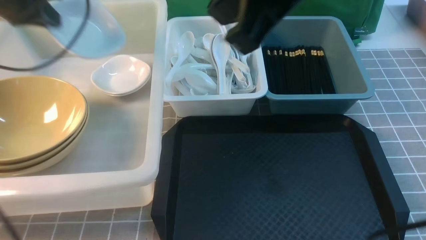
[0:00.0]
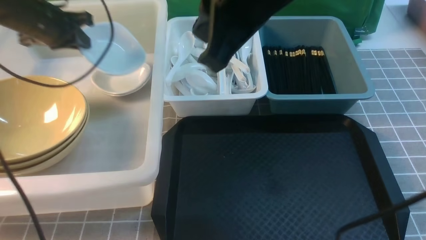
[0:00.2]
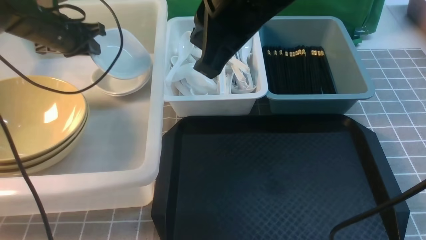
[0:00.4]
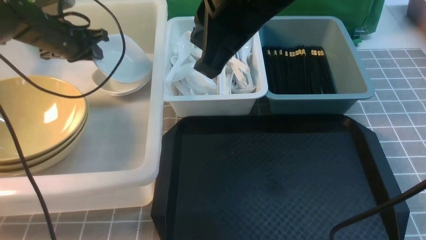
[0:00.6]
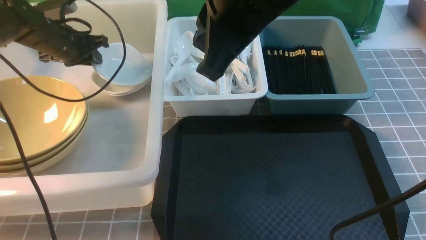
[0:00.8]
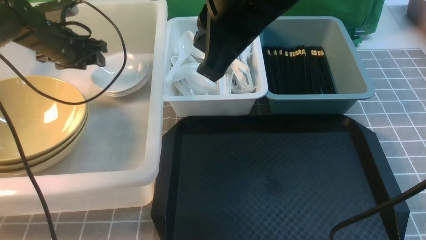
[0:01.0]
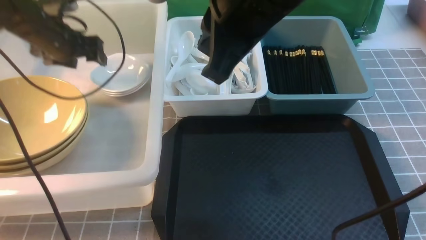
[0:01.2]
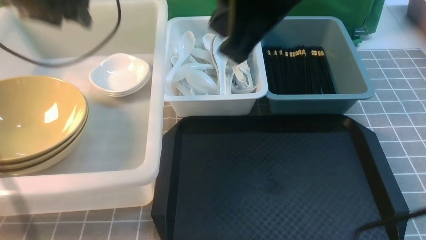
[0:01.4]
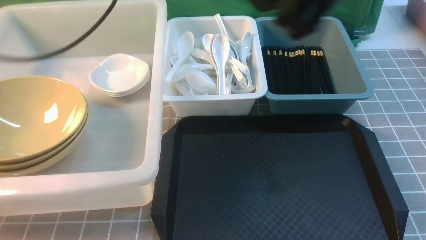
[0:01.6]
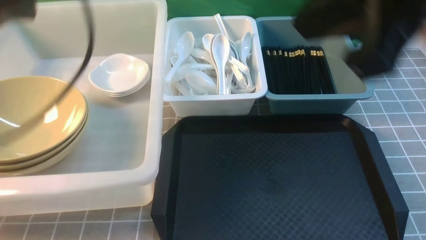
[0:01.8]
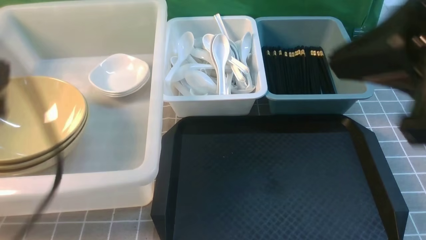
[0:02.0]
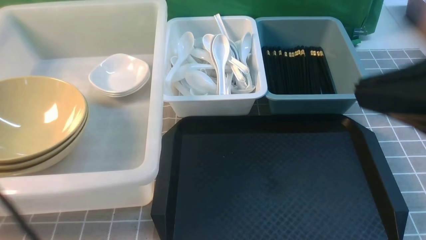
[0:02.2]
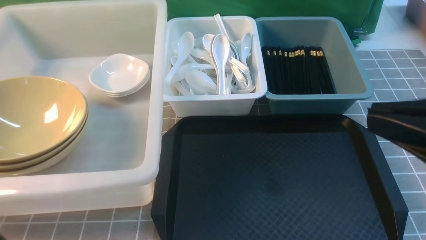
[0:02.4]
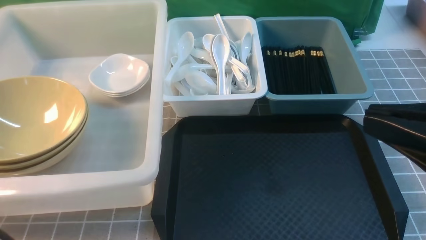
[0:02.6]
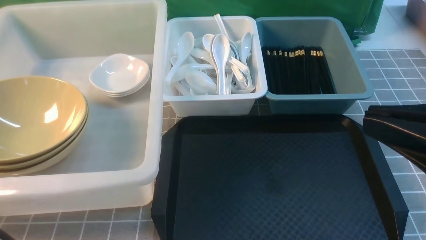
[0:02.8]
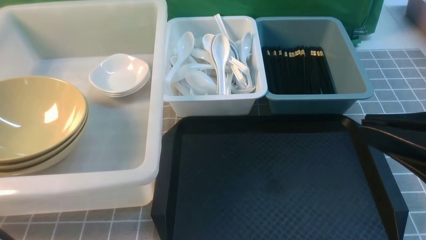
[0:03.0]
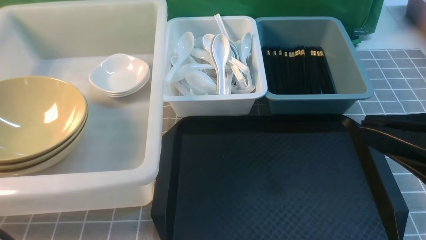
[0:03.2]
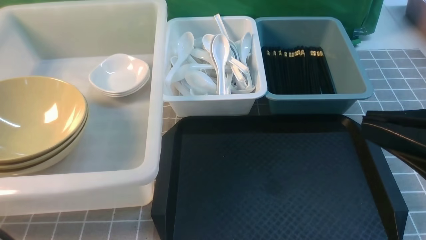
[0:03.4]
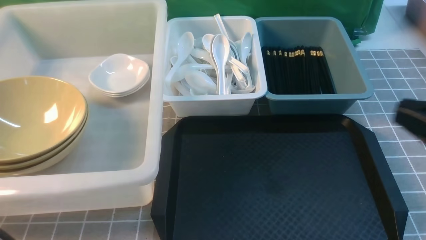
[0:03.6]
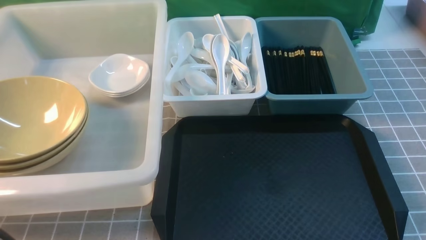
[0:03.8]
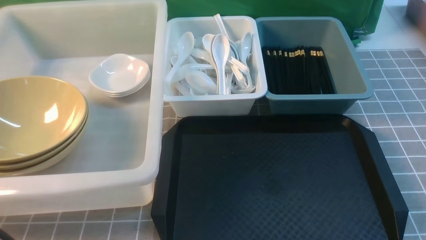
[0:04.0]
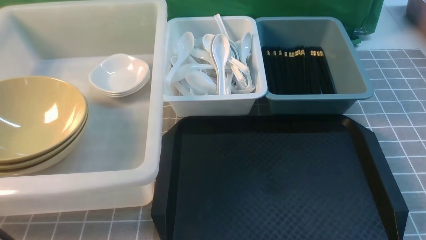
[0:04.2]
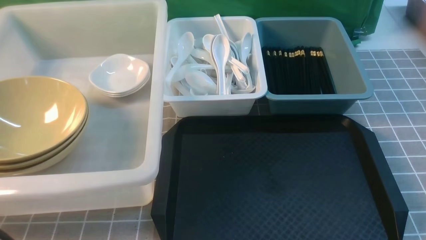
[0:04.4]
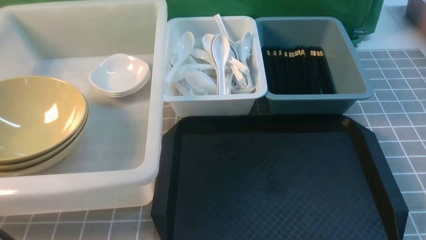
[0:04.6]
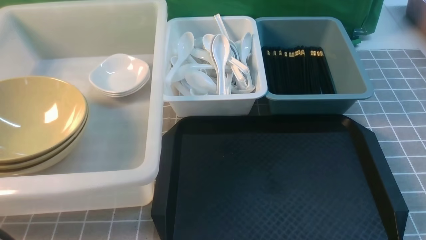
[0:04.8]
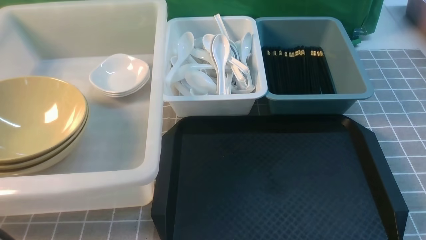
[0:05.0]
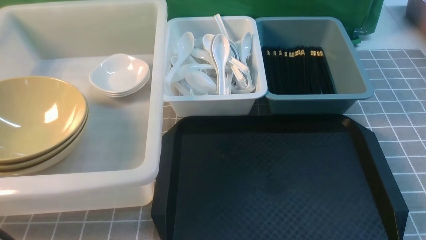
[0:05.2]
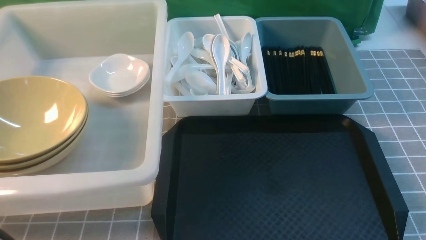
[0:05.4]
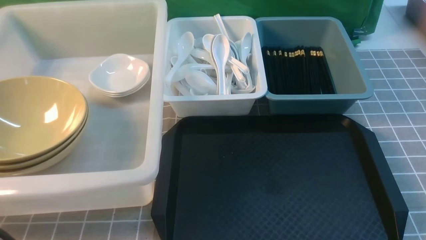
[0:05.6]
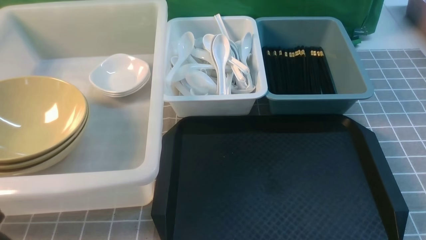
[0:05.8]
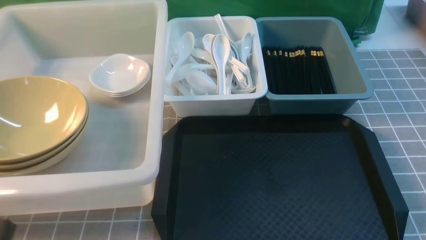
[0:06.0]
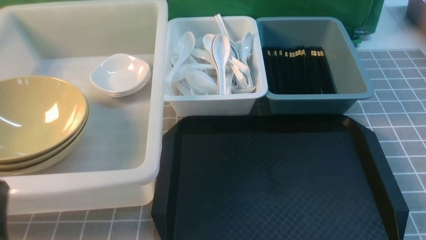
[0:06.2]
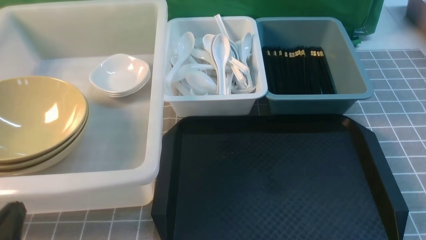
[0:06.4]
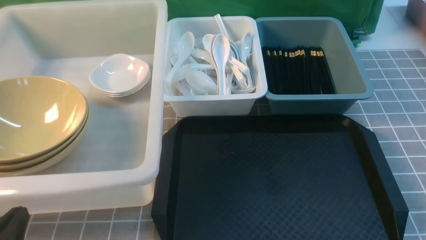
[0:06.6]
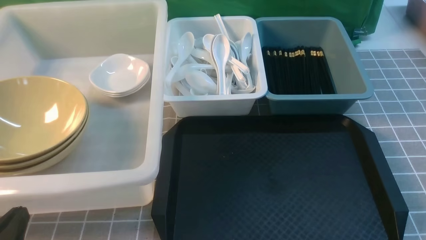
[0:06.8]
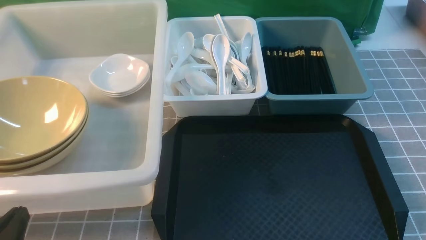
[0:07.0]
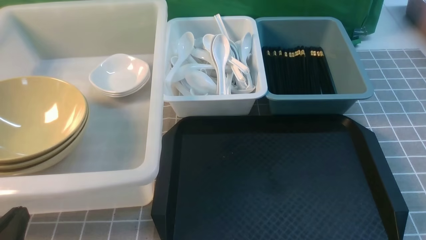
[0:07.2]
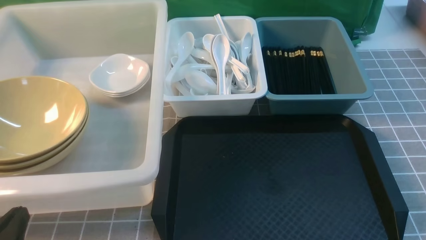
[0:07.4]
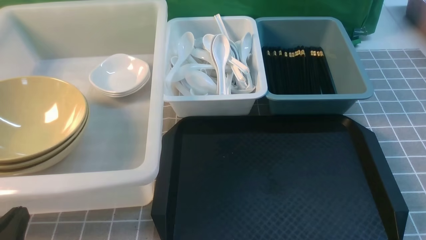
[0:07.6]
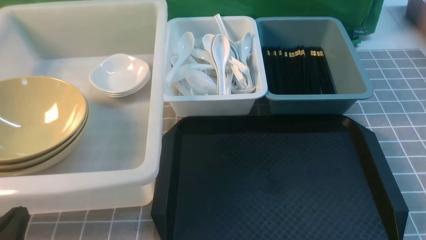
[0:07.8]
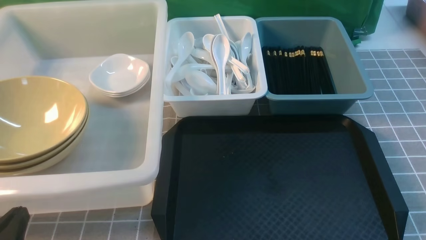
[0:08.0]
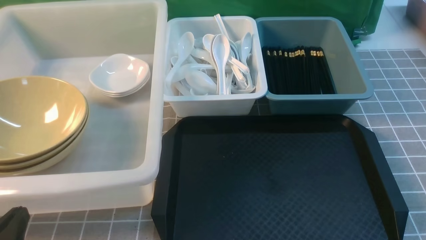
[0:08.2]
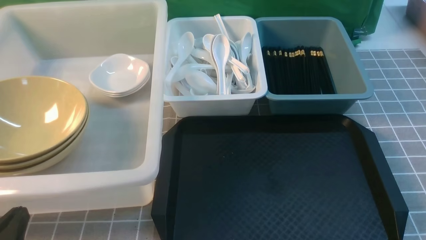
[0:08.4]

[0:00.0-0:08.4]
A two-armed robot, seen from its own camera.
Task of the whole recording: on grey table put chopsticks spoon bowls plates into blue grey white boxes.
0:00.0 to 0:01.4: The left gripper travels downward and back again, approximately 10 cm each way, and opens.
0:01.4 to 0:02.8: The left gripper is displaced backward by some 35 cm, and closes its fingers; the right gripper goes approximately 20 cm backward, to the right and downward.
0:02.8 to 0:04.2: The right gripper is displaced downward and to the right by some 20 cm.
0:05.6 to 0:07.0: The left gripper is displaced downward by approximately 15 cm.
0:07.0 to 0:08.4: Neither gripper changes place.
